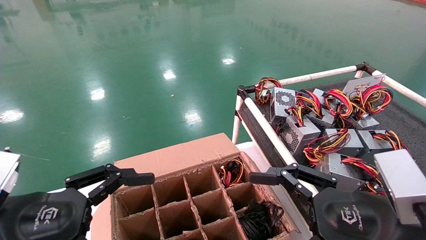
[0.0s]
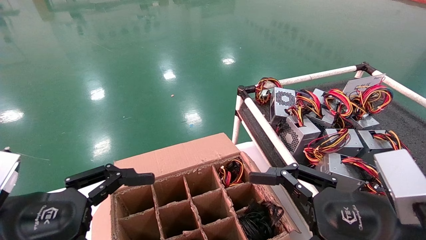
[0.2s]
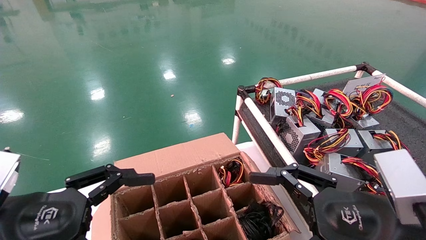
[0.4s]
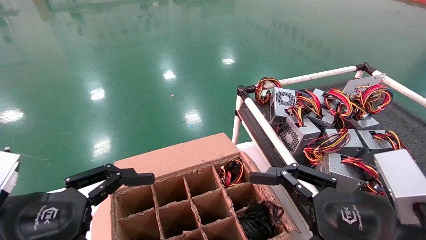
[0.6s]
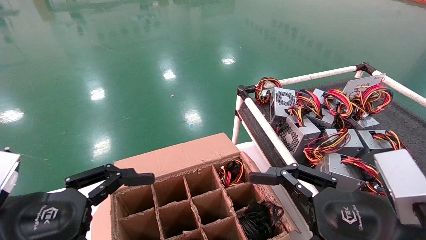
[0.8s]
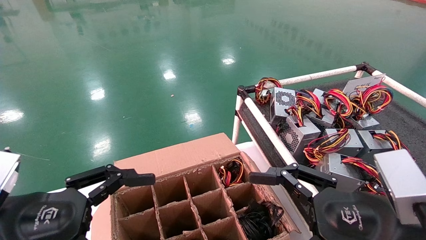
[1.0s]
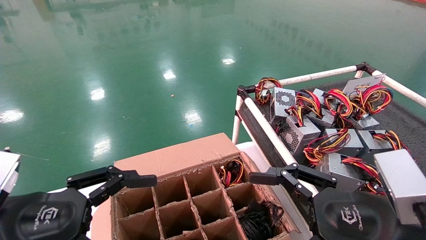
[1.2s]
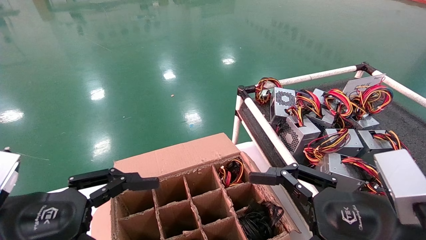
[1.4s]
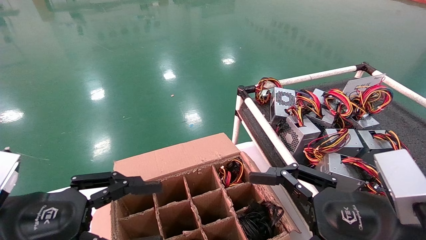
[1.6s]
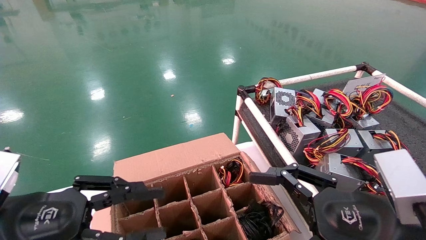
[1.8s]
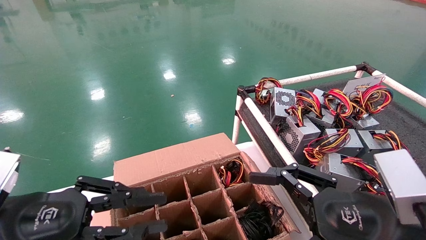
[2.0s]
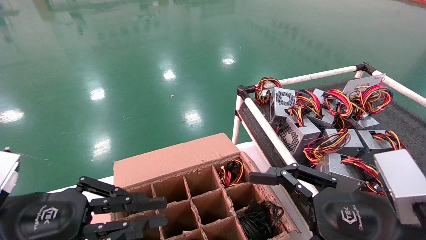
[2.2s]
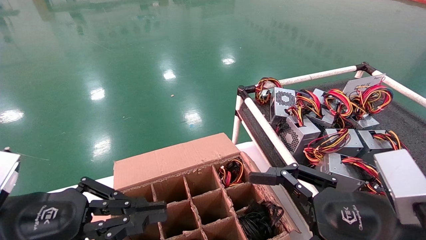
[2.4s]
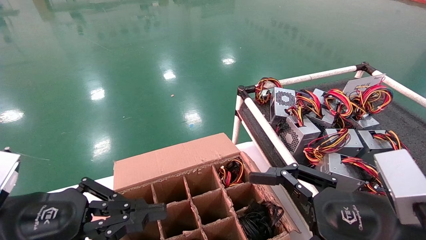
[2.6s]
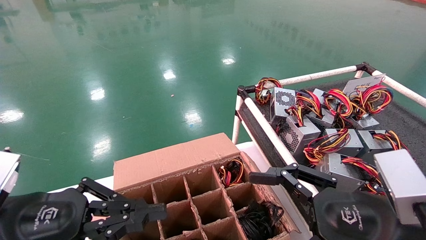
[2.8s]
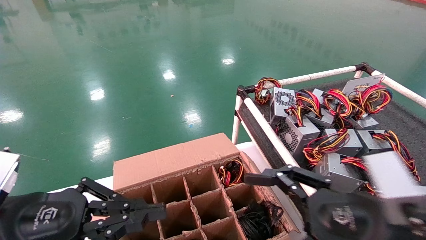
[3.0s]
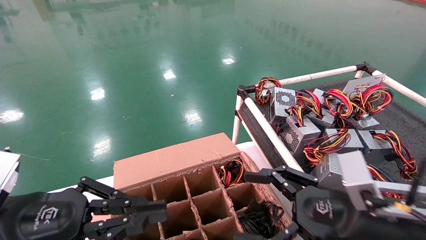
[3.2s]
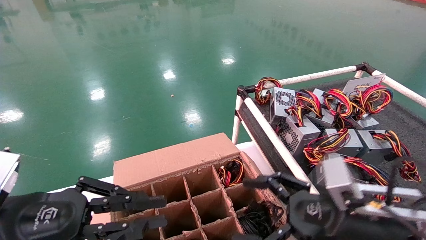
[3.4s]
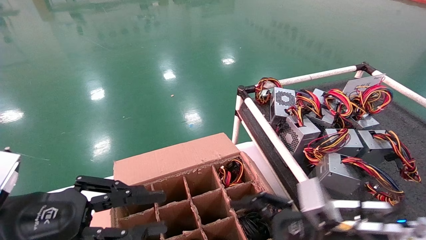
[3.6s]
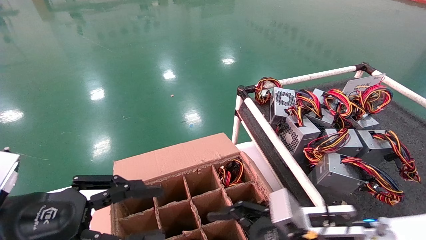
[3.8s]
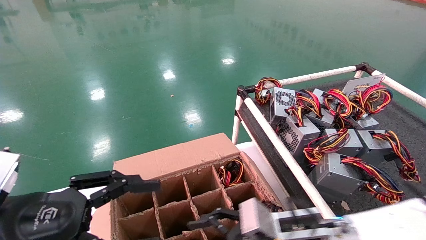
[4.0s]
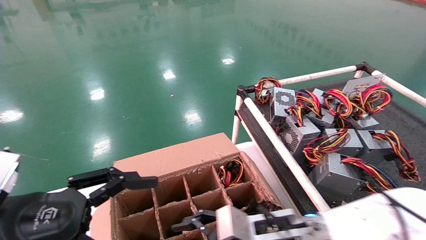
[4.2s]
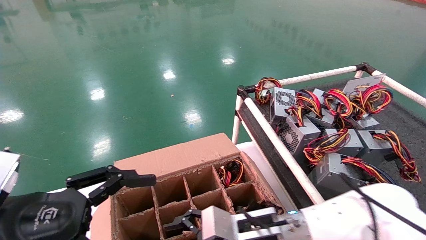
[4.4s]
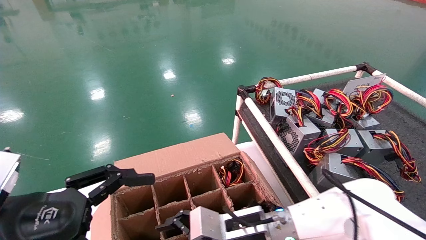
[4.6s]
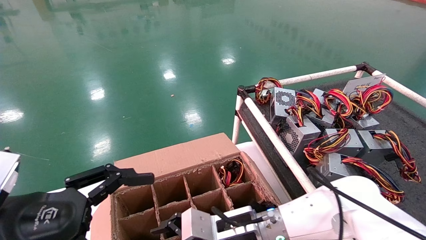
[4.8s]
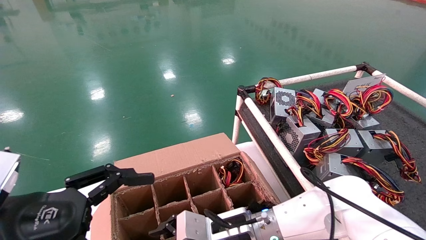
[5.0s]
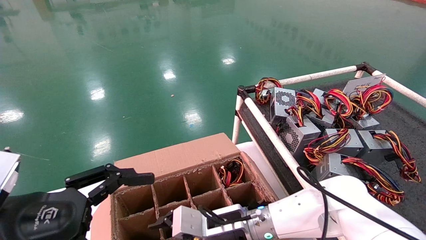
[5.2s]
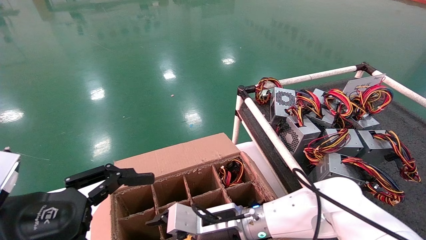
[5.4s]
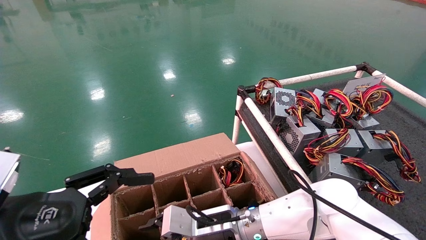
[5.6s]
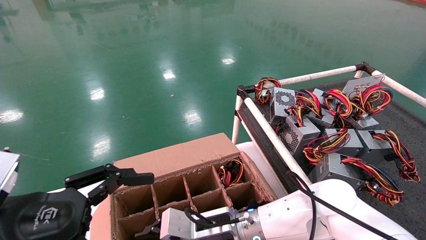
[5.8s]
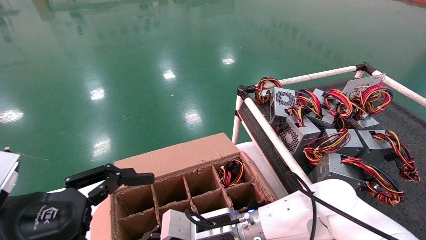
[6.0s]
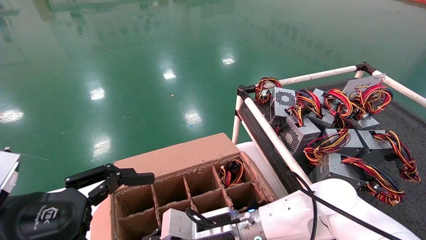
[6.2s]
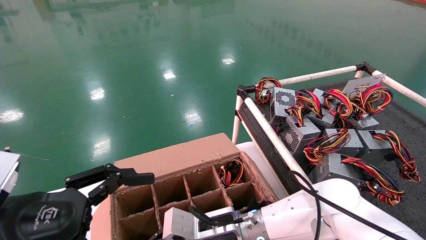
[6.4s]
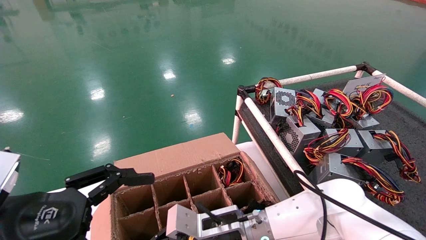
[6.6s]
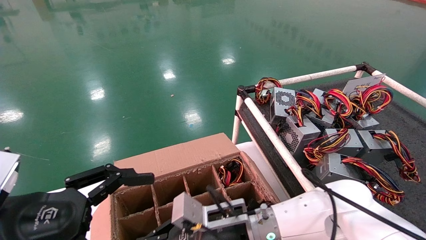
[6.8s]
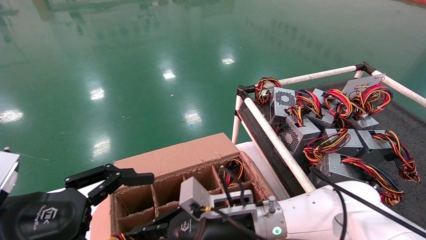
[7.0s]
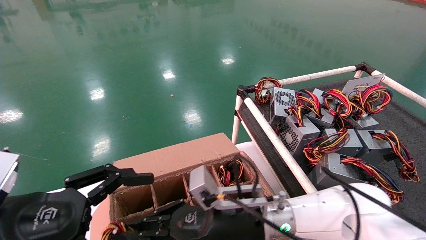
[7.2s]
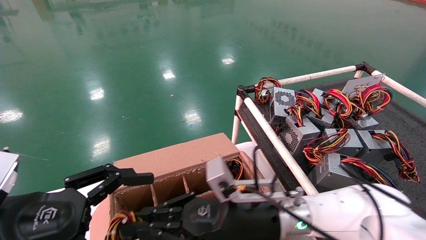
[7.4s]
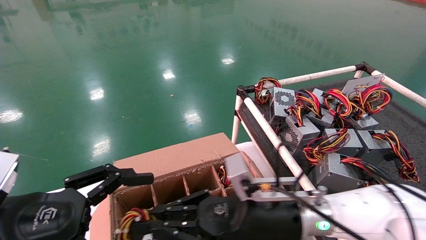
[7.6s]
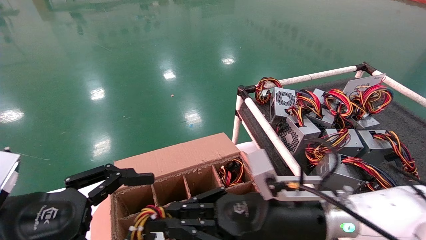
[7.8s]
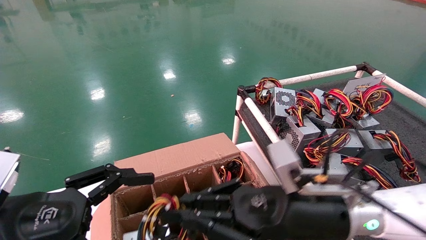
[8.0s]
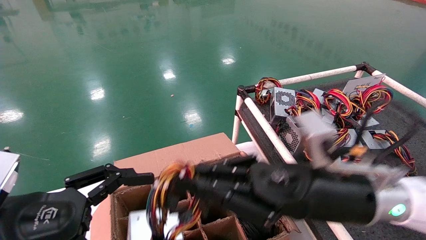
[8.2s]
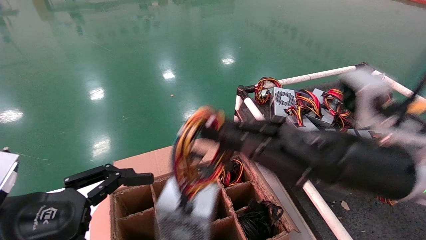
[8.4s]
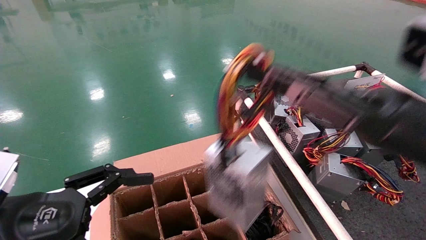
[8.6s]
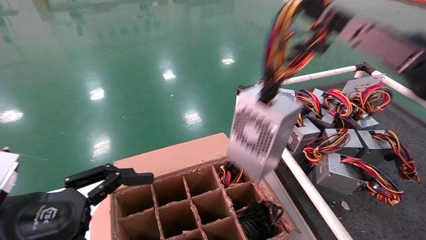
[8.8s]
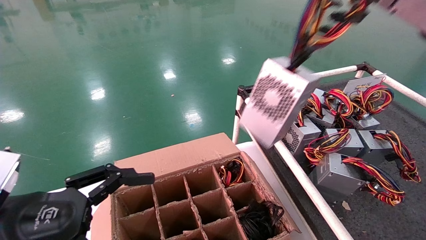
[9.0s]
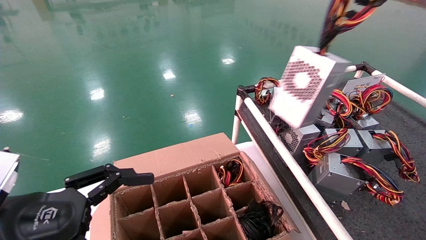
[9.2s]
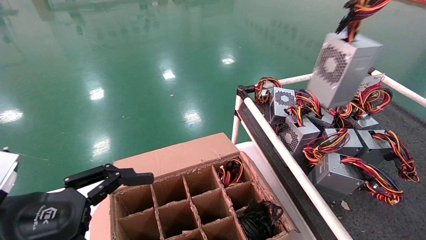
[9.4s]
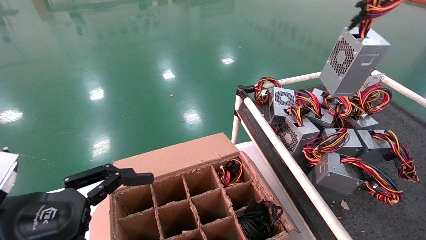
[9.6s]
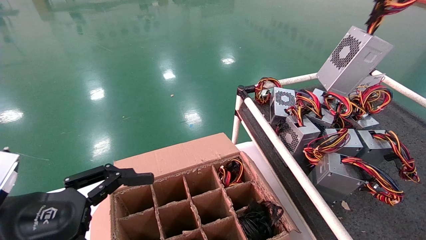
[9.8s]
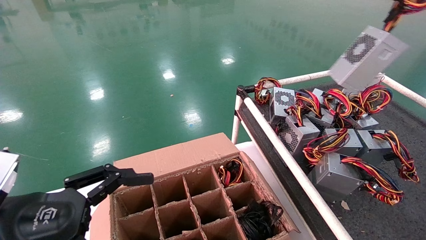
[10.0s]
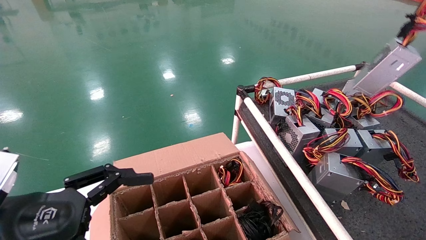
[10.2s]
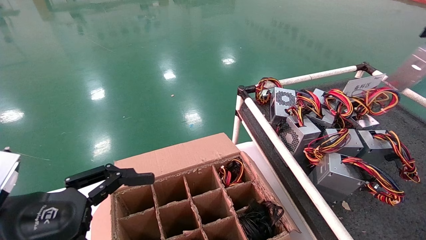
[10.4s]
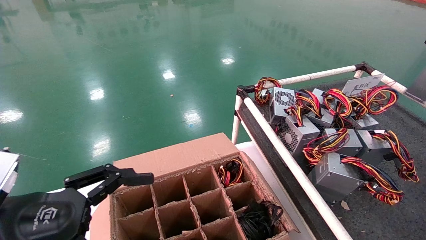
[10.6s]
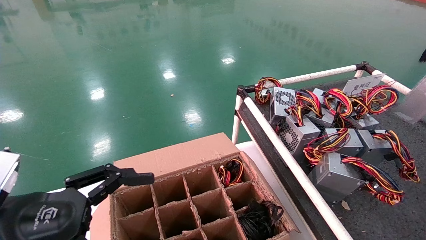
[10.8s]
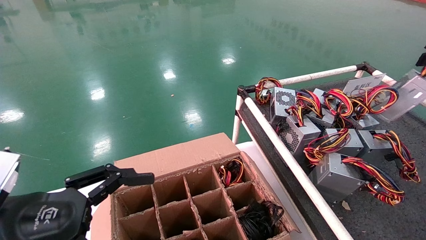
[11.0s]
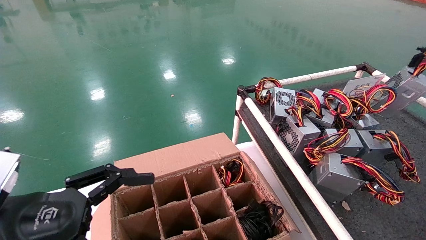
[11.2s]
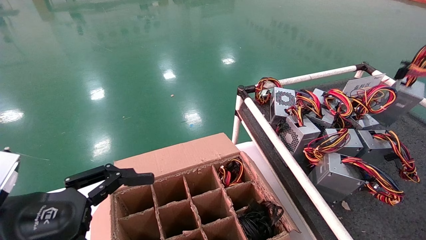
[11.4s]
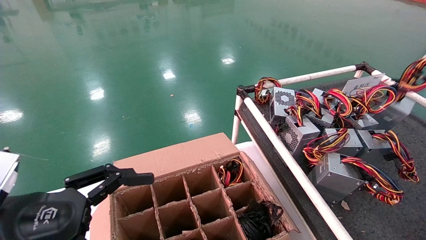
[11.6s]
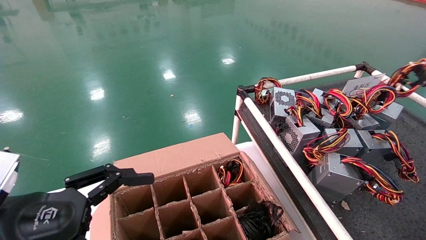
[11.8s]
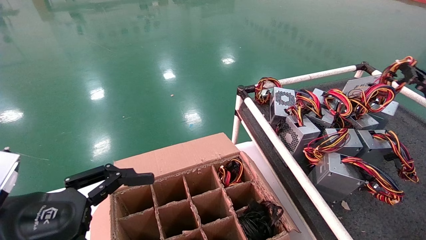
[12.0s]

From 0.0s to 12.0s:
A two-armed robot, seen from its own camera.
Step, from 3.4s to 7.0s: Grab and lift the power supply from the large box.
From 0.0s to 1.6s: Neither gripper changes place.
From 1.6s to 3.0s: The left gripper closes.
From 3.0s to 4.4s: The right gripper goes some 20 cm to the left, forward and downward, while the left gripper opens.
From 4.4s to 6.0s: The right gripper shifts approximately 5 cm to the left, and closes its fingers.
From 6.0s to 7.6s: The right gripper heads to the right, upward and backward, covering roughly 15 cm, and closes its fingers.
From 7.6s to 9.0s: The right gripper moves to the right and upward, some 30 cm.
From 9.0s to 10.4s: The right gripper goes roughly 20 cm to the right.
From 10.4s to 12.0s: The right gripper travels downward and forward by roughly 10 cm.

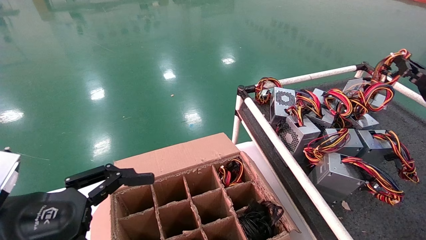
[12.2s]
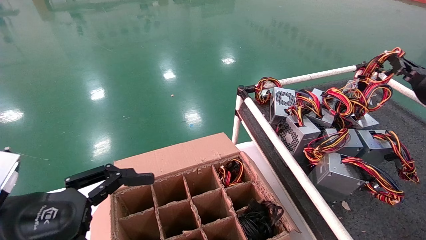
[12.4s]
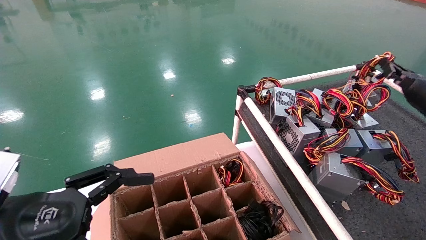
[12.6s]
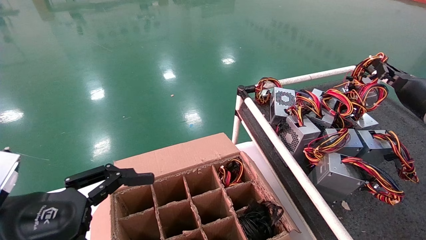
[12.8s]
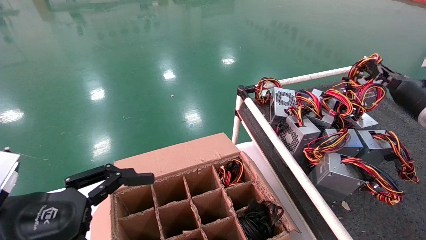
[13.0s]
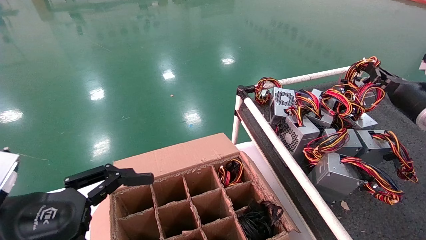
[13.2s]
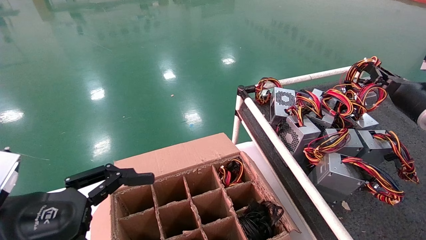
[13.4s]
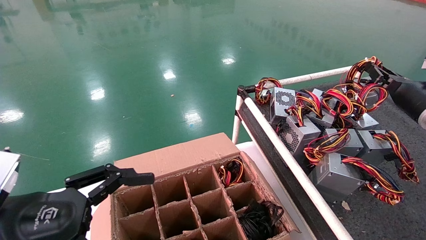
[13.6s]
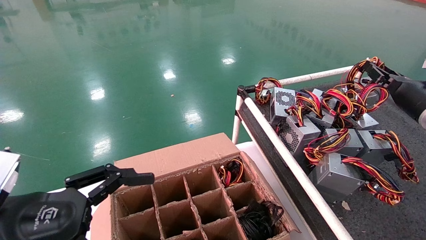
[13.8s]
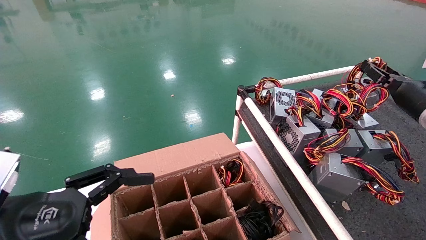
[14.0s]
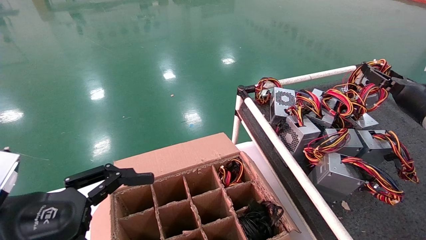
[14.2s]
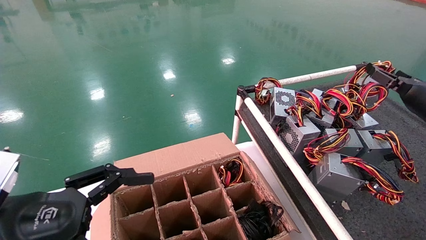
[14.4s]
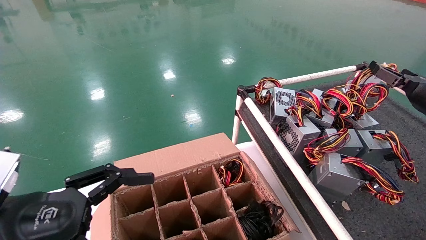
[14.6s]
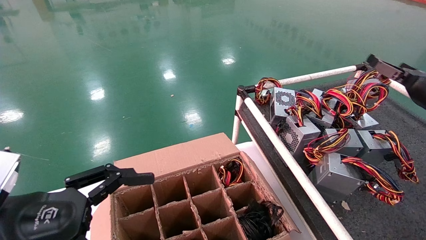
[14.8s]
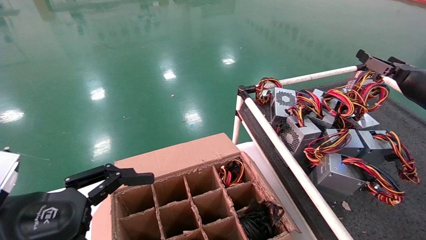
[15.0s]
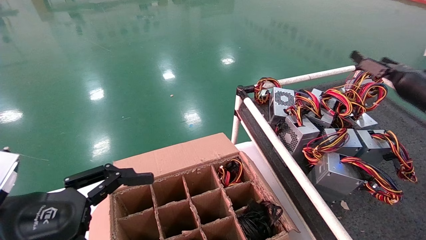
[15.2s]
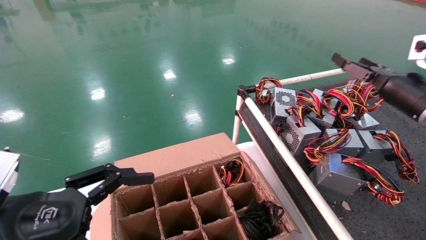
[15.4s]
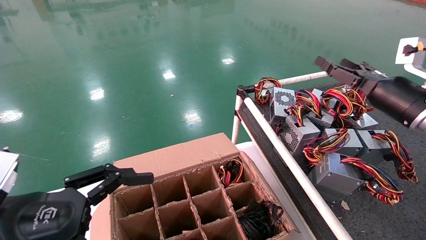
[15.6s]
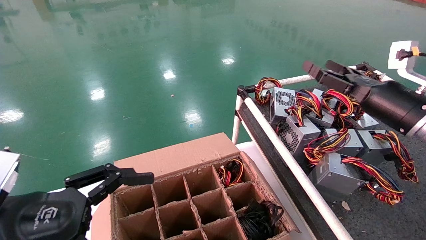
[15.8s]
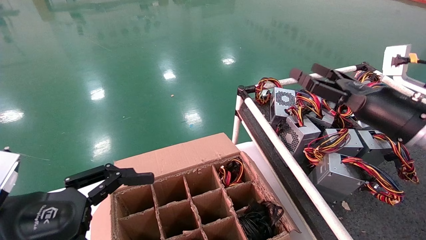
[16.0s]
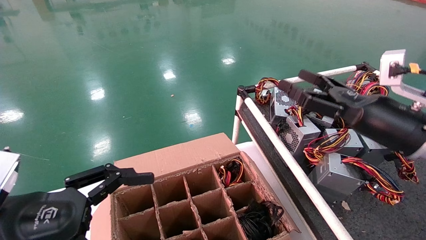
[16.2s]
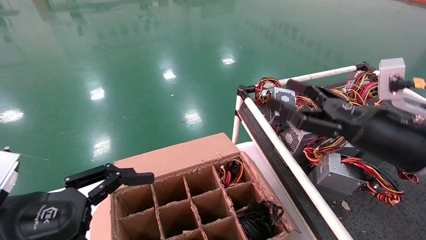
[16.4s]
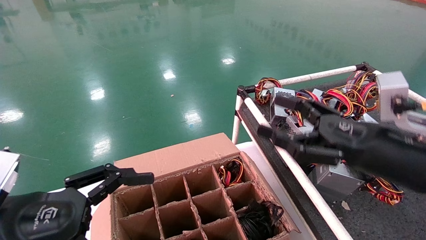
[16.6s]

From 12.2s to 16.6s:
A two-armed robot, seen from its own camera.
From 12.2s to 13.6s: The grippers move only a little.
From 13.6s to 15.2s: The right gripper opens up.
From 15.2s to 16.6s: The right gripper shifts approximately 20 cm to the left, backward and downward.
